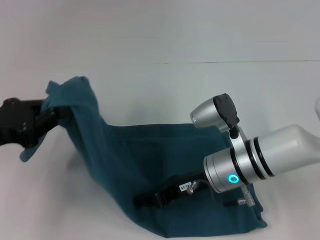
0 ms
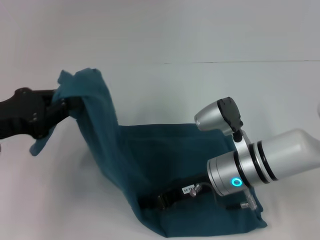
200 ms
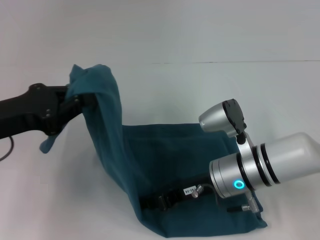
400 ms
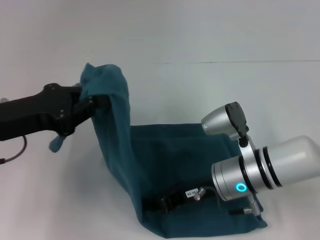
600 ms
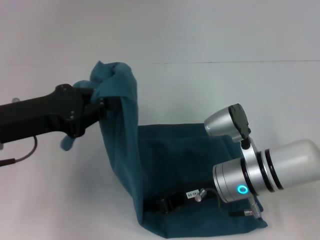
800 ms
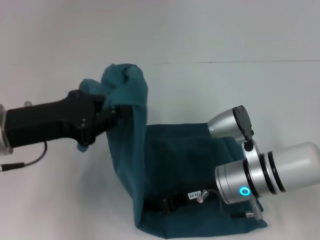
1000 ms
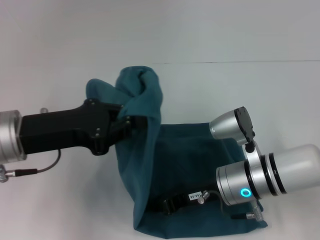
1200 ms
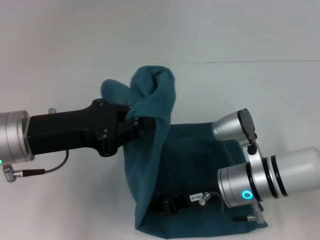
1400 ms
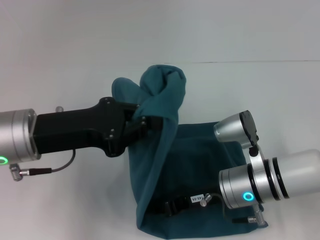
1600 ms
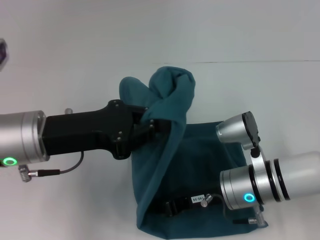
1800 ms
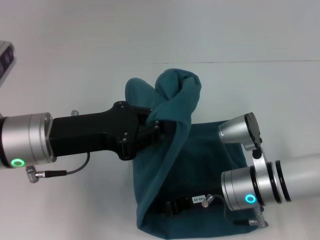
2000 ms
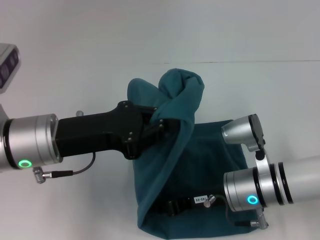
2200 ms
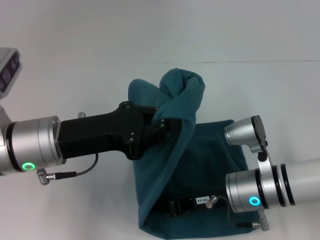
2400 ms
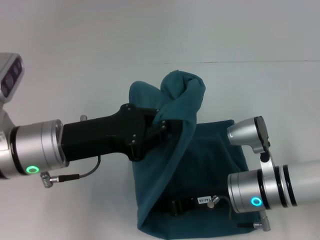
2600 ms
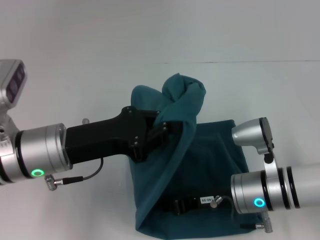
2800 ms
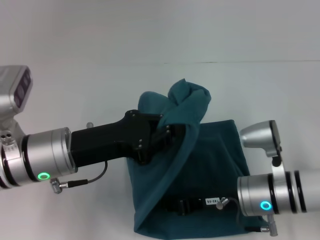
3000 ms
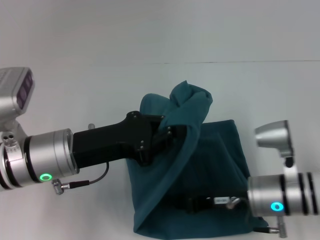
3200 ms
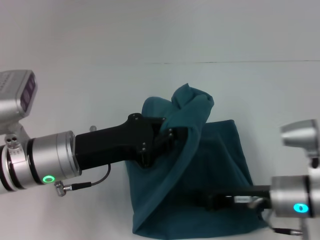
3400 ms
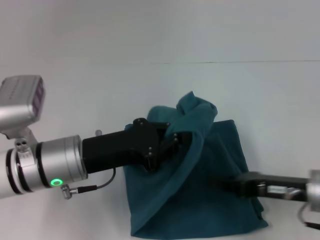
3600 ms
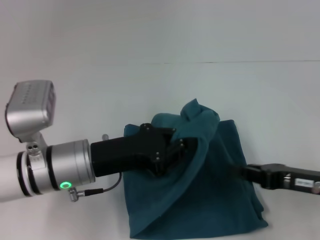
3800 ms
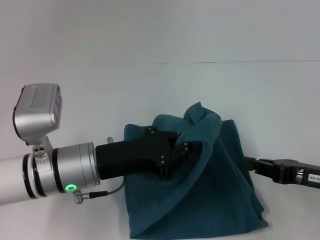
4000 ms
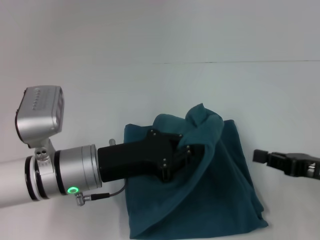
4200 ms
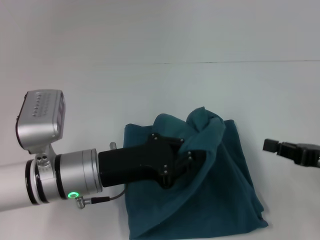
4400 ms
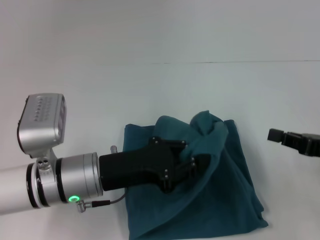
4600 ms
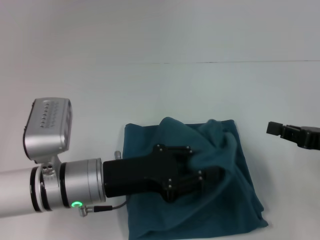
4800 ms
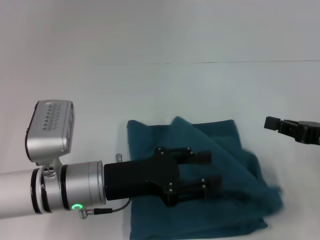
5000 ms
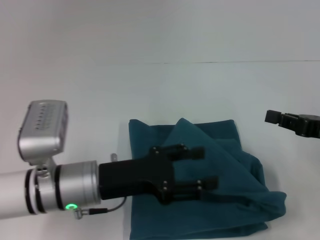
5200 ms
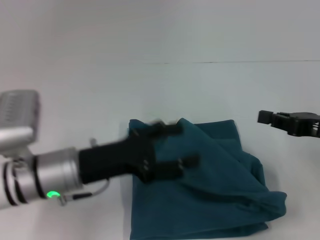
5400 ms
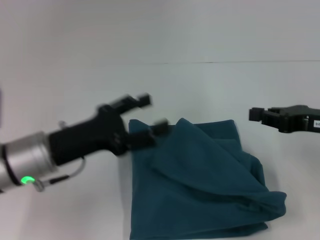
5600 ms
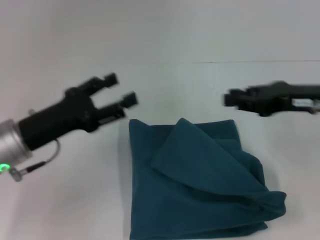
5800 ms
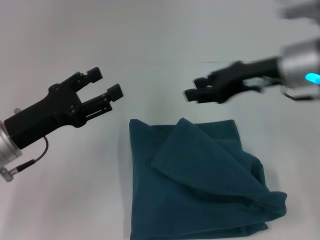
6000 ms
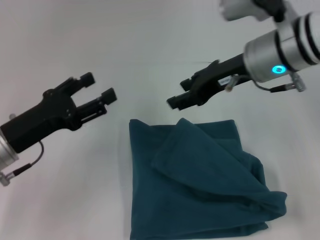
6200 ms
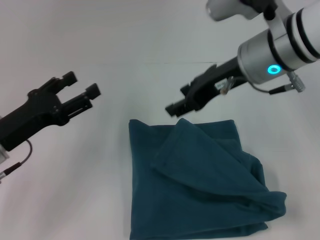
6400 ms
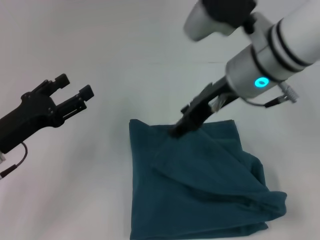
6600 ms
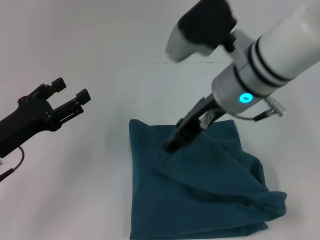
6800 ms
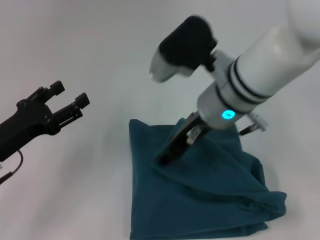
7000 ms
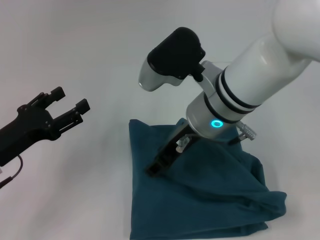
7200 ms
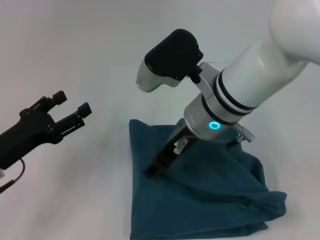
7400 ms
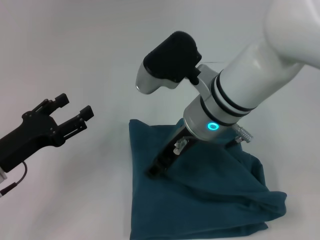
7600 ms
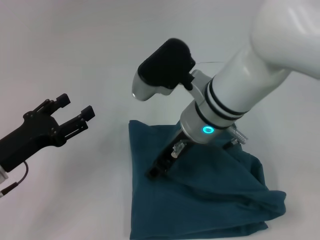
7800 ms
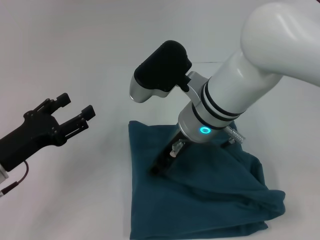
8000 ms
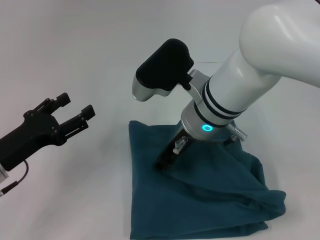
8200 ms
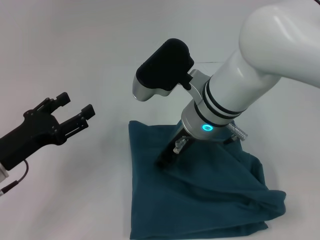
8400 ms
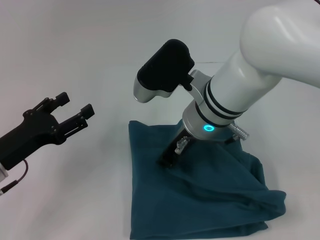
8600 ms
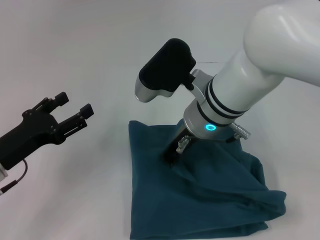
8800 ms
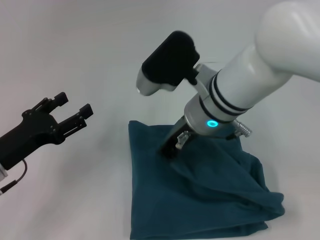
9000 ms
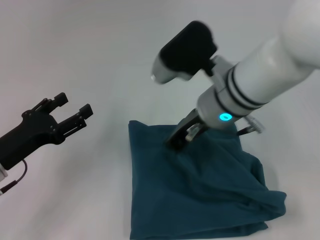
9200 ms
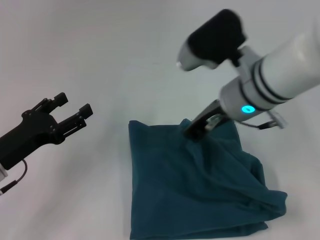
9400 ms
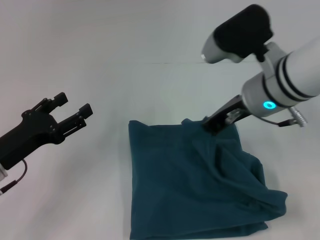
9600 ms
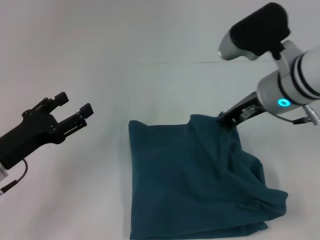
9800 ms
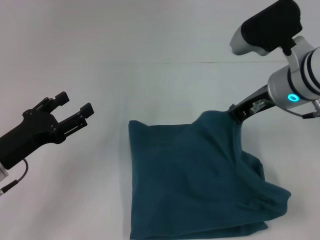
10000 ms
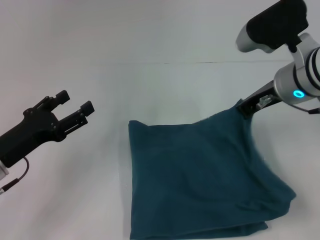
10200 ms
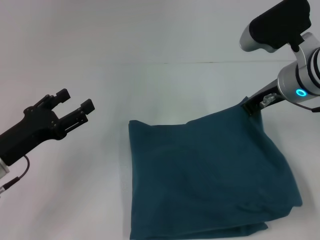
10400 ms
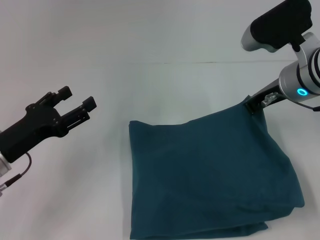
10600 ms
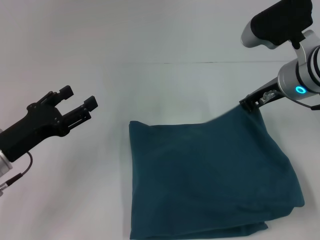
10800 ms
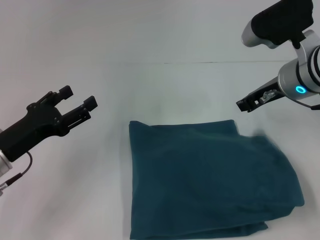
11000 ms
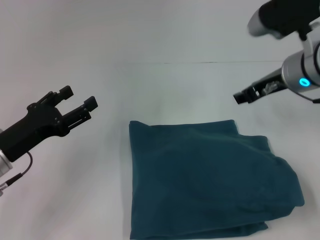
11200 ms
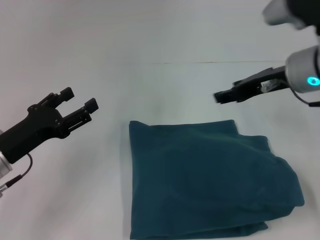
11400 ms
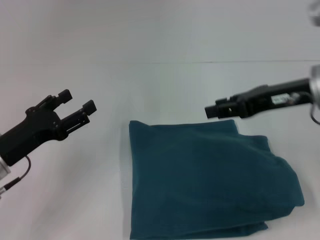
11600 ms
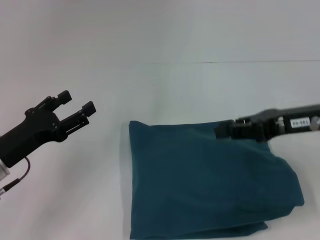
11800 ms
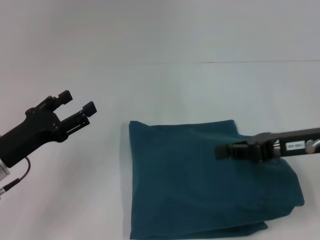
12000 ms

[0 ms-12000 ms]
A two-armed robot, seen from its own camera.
Step, 0 ms to 3600 ms: Press the middle of the clothes with your right hand.
Step, 3800 ms to 5600 ms: Fold the clothes to the left.
0 ms to 1600 ms: The left gripper goes about 10 cm to the right.
1600 ms to 3000 ms: The left gripper ends up some 5 cm from where it was.
3000 ms to 4400 ms: The right gripper heads to the right and upward, covering some 15 cm.
4400 ms to 6000 ms: The left gripper is displaced to the left by roughly 10 cm, and opens. The right gripper travels to the left, forward and upward by about 20 cm.
6000 ms to 7600 ms: The right gripper goes approximately 10 cm to the left, and opens its fingers, while the left gripper shifts by some 5 cm.
7600 ms to 9000 ms: The right gripper closes.
9000 ms to 10400 ms: The right gripper moves to the right, some 10 cm.
10400 ms to 12000 ms: The right gripper is displaced backward and to the right by roughly 10 cm, and opens, then closes once more.

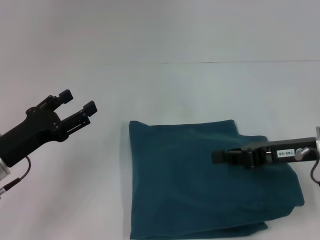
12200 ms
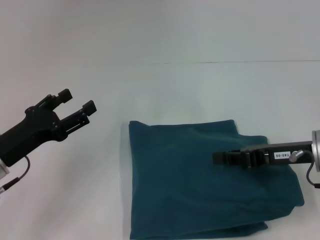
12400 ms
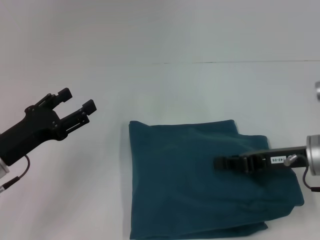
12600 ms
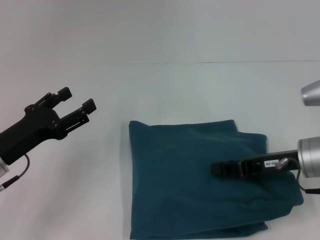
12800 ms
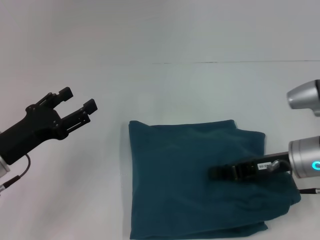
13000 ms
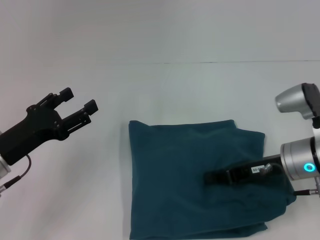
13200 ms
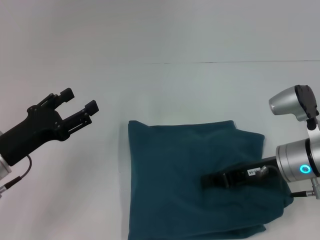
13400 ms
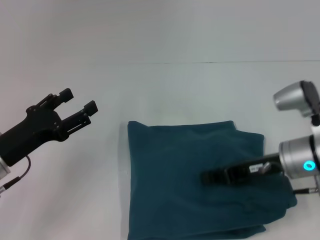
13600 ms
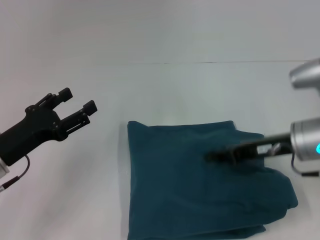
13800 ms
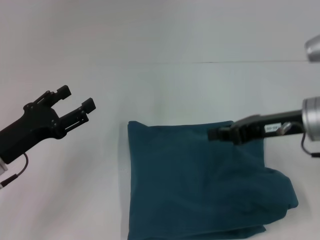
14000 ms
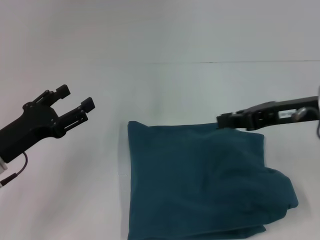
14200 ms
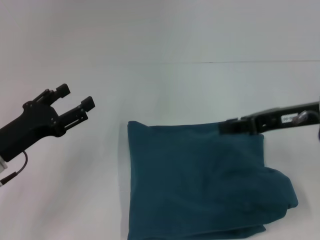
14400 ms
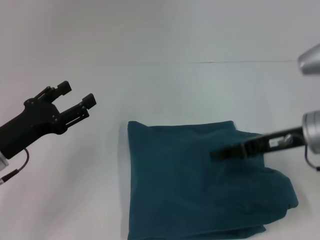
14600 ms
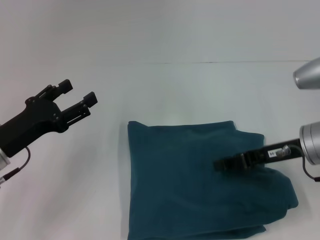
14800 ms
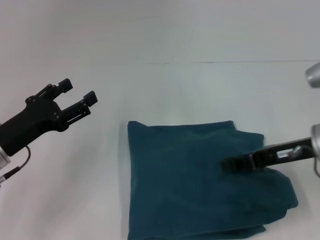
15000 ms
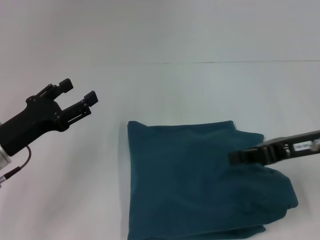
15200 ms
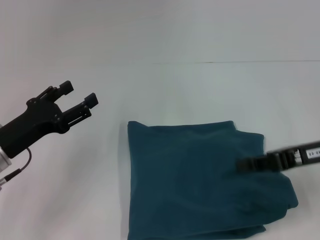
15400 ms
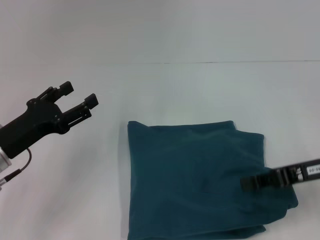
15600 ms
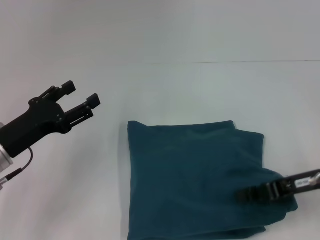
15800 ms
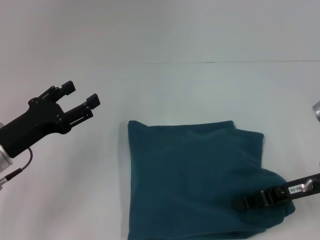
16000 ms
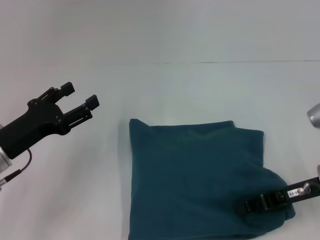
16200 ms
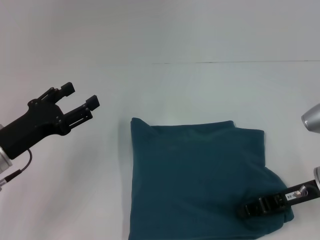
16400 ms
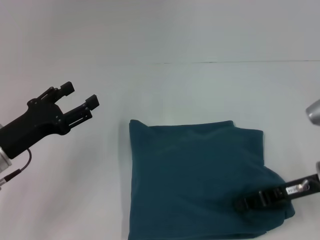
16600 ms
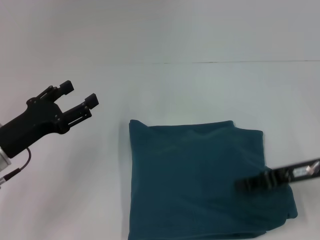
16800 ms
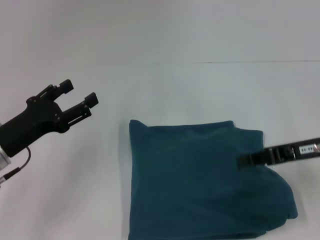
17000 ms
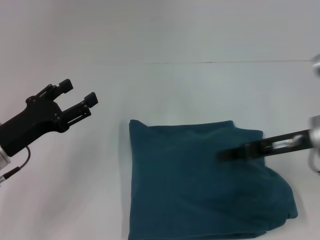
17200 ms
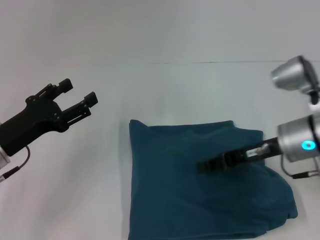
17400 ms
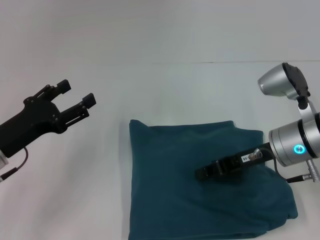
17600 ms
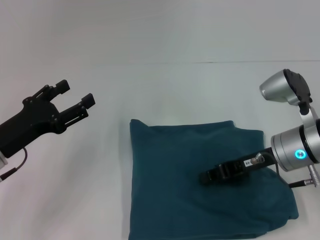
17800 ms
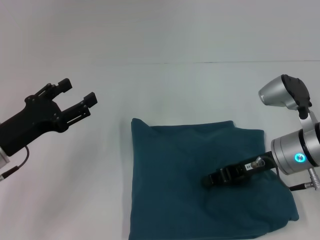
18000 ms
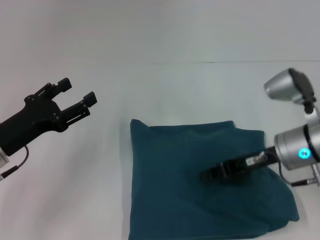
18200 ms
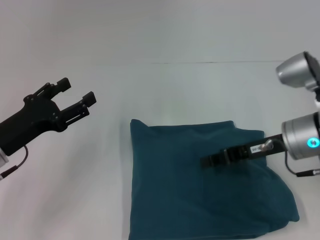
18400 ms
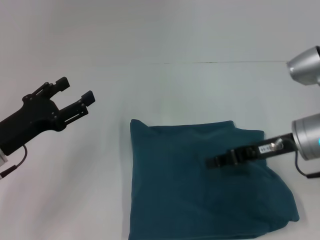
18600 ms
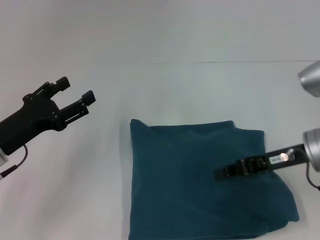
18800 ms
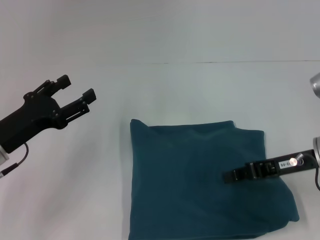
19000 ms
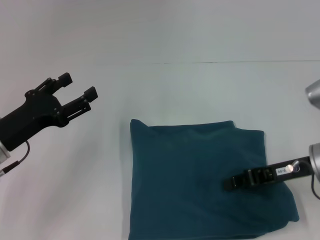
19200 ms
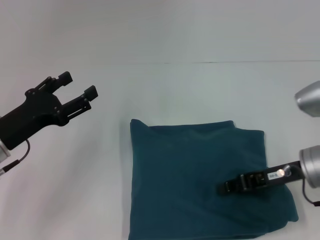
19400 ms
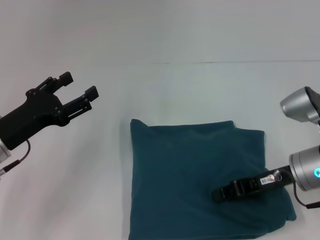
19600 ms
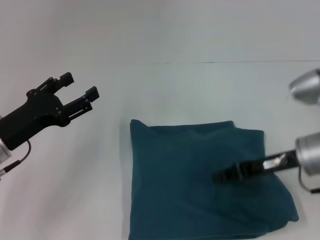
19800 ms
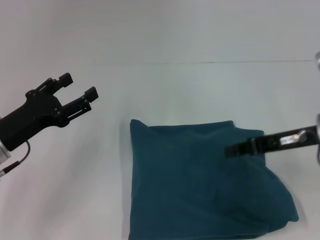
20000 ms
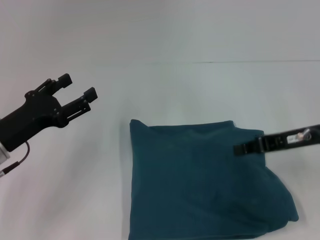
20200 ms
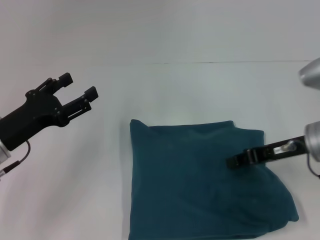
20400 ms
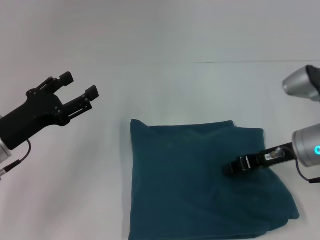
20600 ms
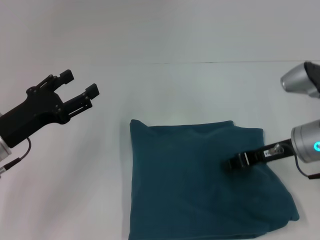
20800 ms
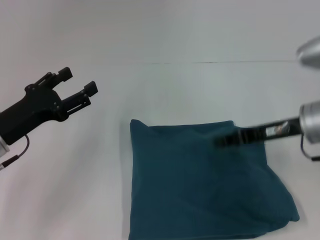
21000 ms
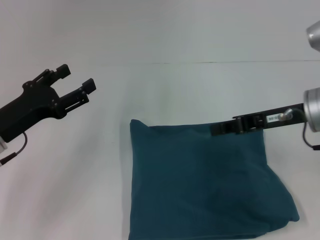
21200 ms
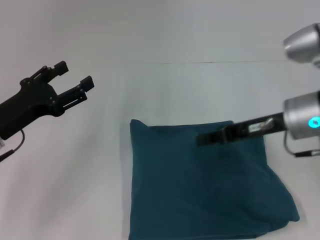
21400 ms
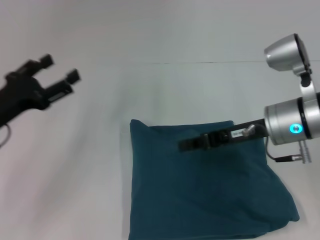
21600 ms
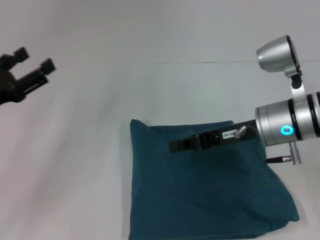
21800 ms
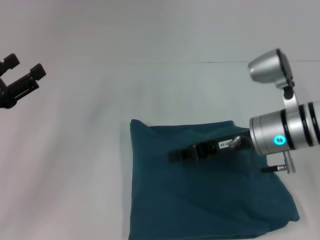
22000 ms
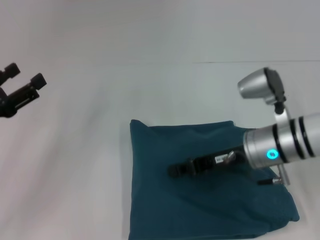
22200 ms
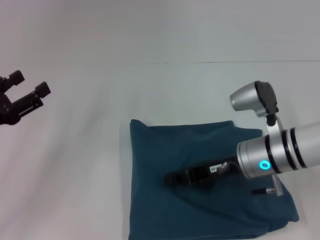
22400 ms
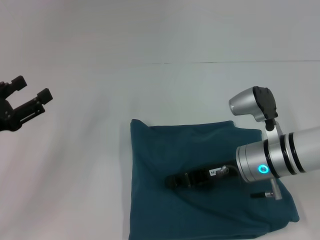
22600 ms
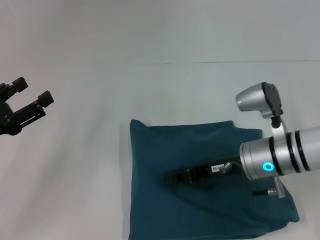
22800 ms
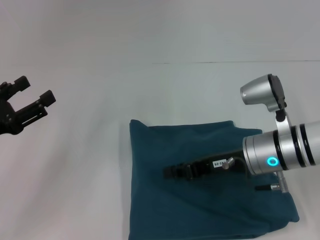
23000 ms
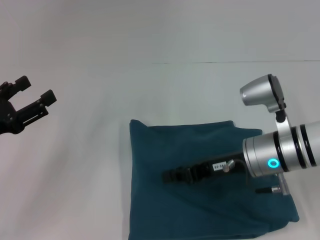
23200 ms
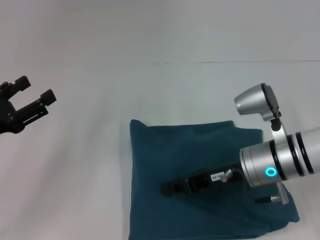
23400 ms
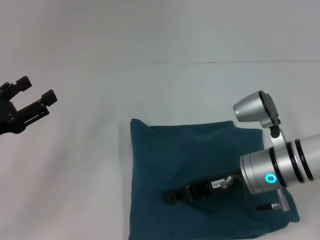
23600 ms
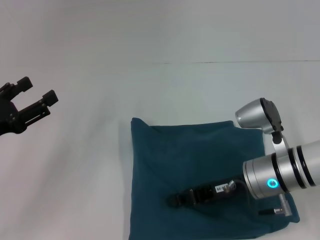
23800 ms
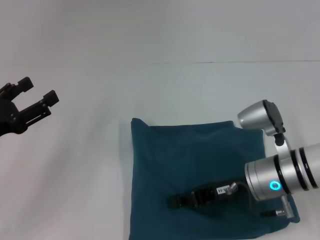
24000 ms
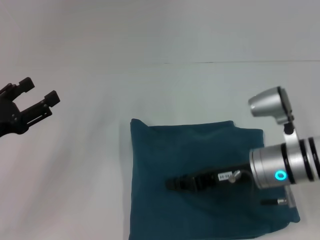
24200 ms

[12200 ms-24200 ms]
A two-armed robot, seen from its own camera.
12200 ms to 13800 ms: There are only small adjustments of the grippers.
13800 ms to 15200 ms: The right gripper moves up and down over roughly 5 cm, changing direction 2 times.
15200 ms to 16600 ms: The right gripper moves downward, approximately 5 cm.
16600 ms to 18200 ms: The right gripper moves to the left, approximately 5 cm.
18200 ms to 19800 ms: The grippers make only small movements.
19800 ms to 21200 ms: The right gripper goes up and down, some 5 cm each way, reversing 2 times.
21200 ms to 22600 ms: The left gripper travels to the left by roughly 5 cm. The right gripper goes approximately 10 cm downward and to the left.
22600 ms to 24200 ms: There are only small adjustments of the grippers.
